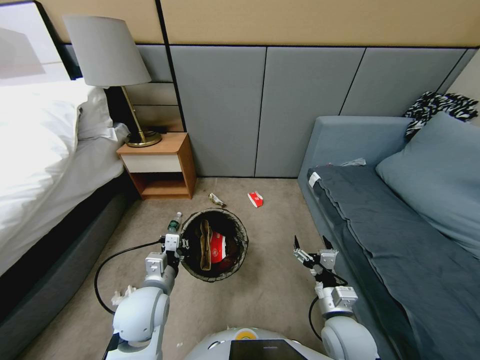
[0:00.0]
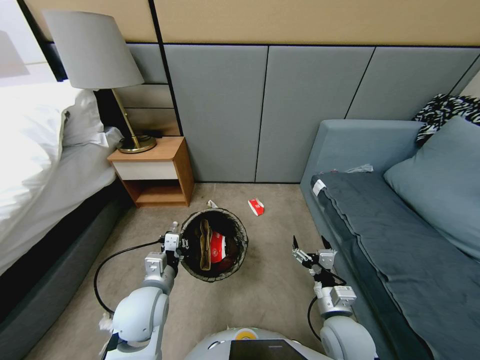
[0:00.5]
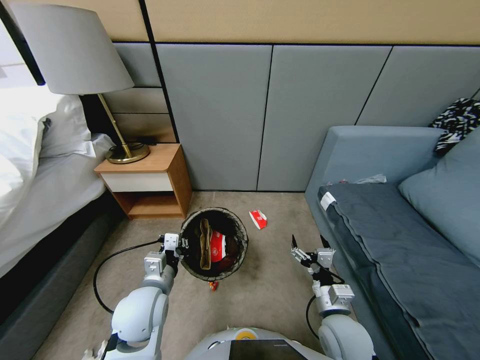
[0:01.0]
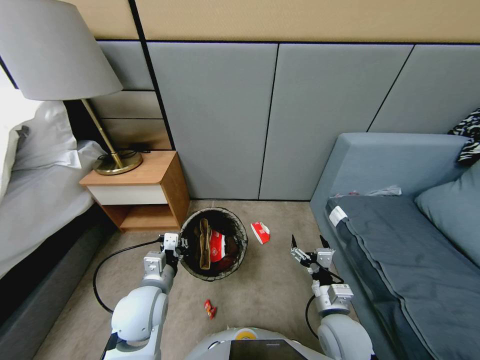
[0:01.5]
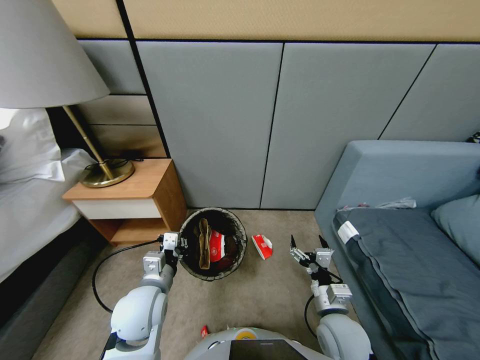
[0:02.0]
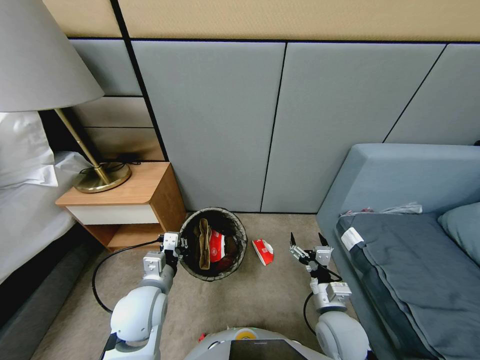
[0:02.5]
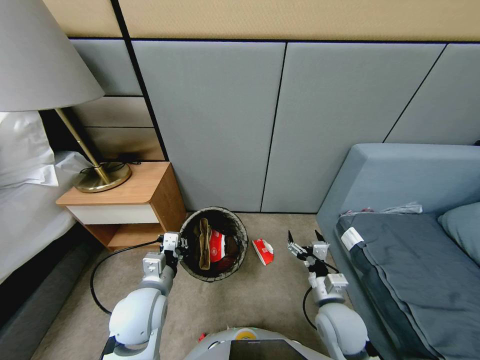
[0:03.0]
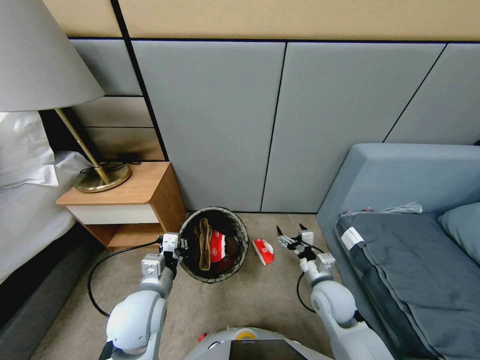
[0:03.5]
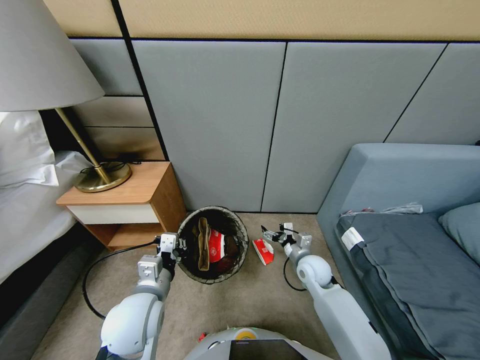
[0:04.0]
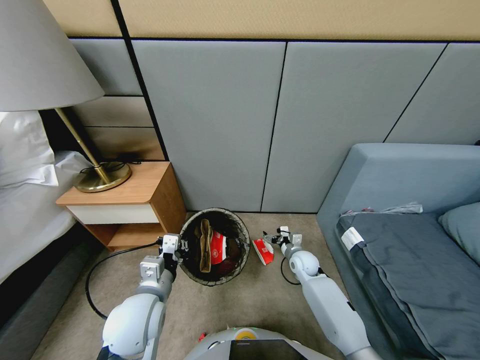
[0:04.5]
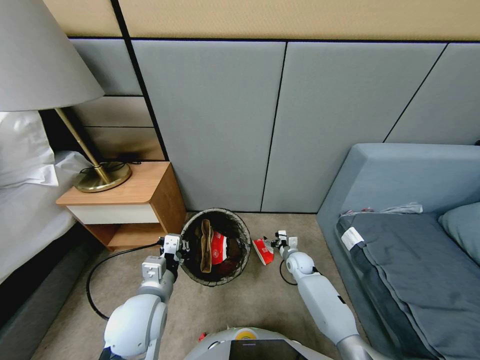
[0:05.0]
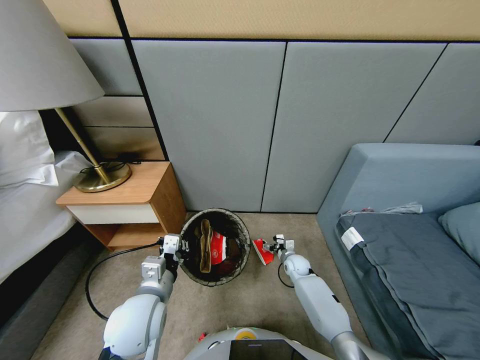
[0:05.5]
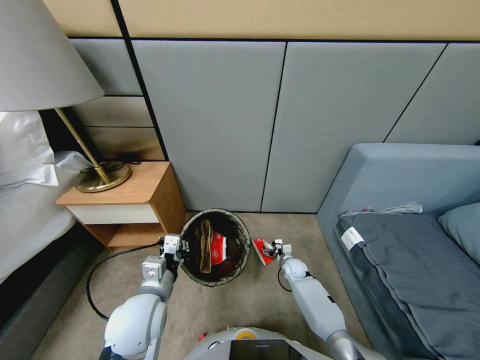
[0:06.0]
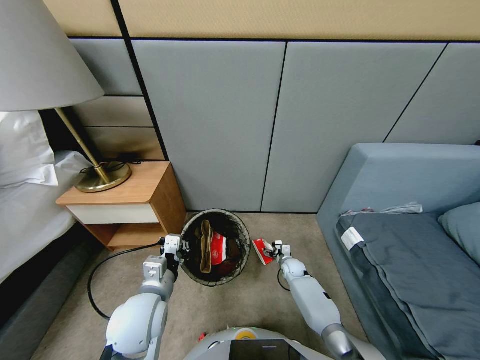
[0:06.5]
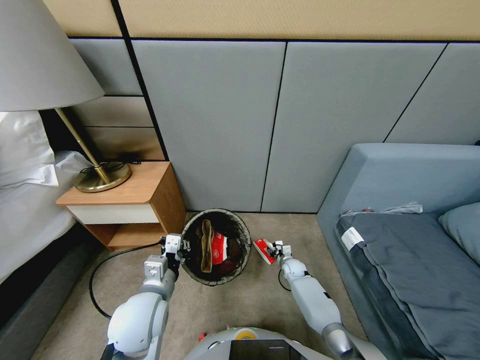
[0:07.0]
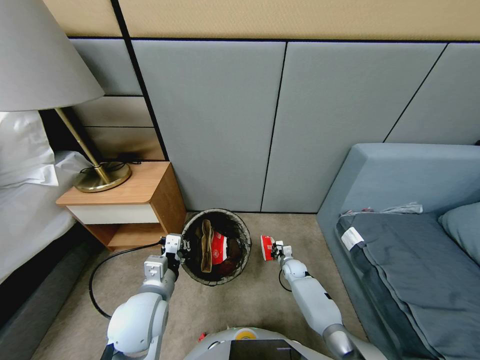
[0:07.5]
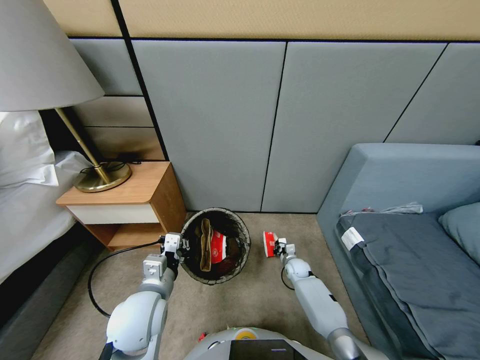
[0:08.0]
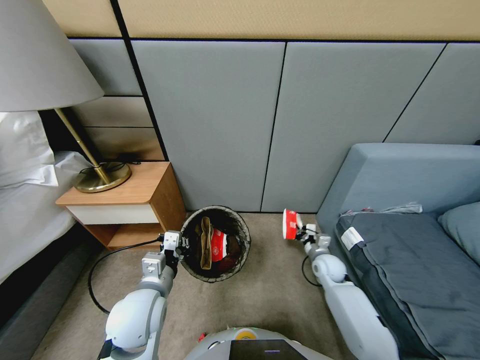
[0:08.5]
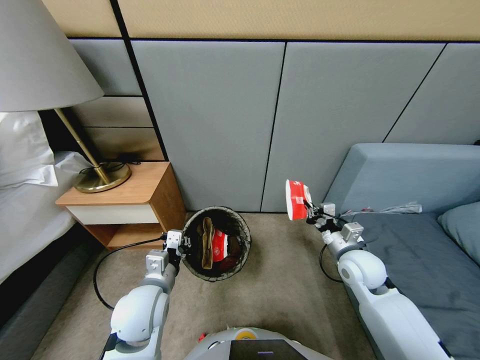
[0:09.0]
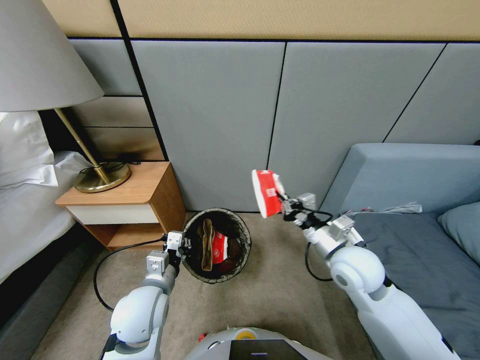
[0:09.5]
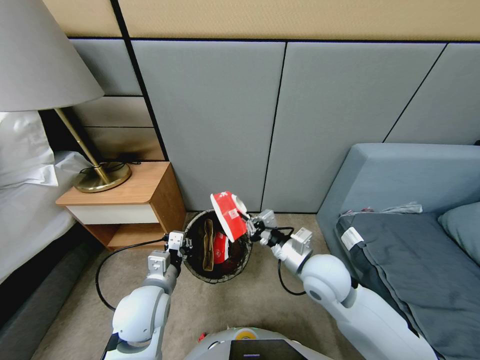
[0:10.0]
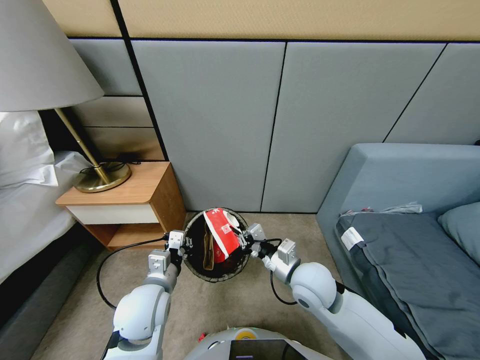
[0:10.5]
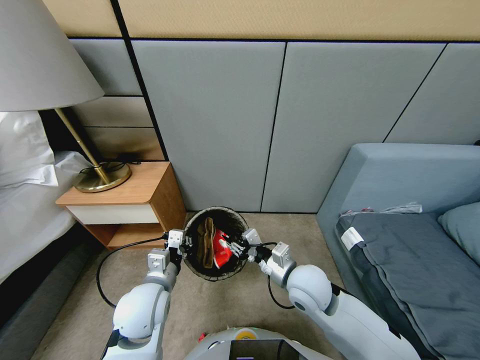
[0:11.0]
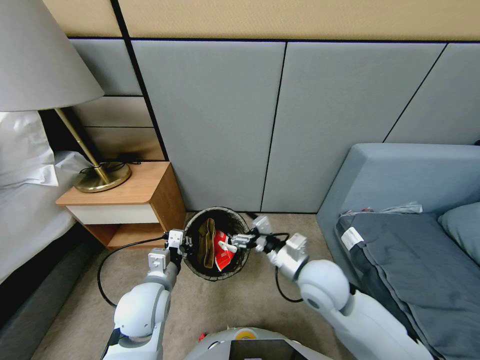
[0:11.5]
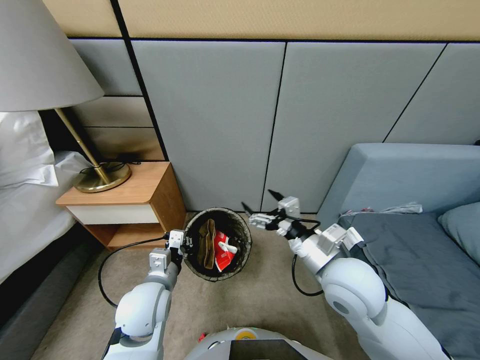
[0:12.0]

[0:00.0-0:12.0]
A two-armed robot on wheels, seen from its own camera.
Task of the whole recording: Pick up the trash bin, then pick up the garbage from the floor and place it into the trash bin.
0:02.0 to 0:04.0: The right gripper heads forward, covering about 20 cm.
0:04.0 to 0:06.0: The right gripper shifts approximately 15 cm downward.
0:06.0 to 0:08.0: The right gripper shifts by some 5 cm, and closes its fingers.
0:08.0 to 0:10.0: The right gripper is displaced upward and backward by some 30 cm.
0:10.0 to 0:12.0: The right gripper travels upward by some 5 cm, and opens up.

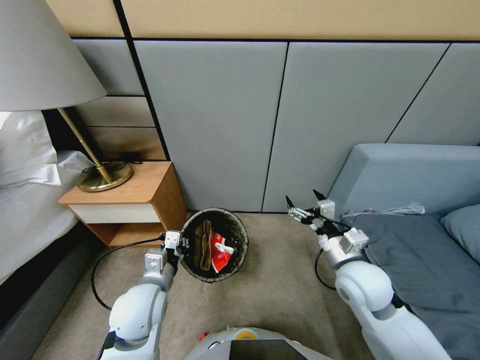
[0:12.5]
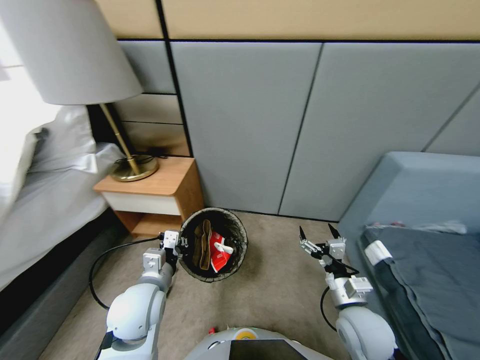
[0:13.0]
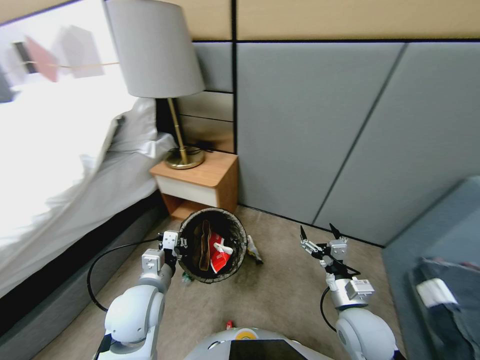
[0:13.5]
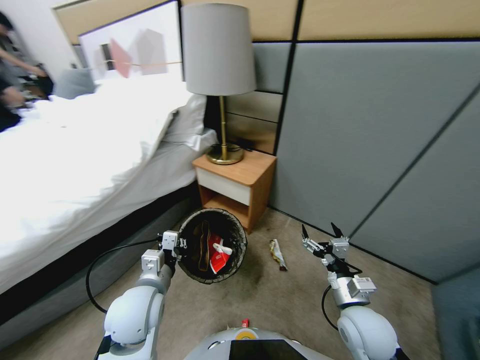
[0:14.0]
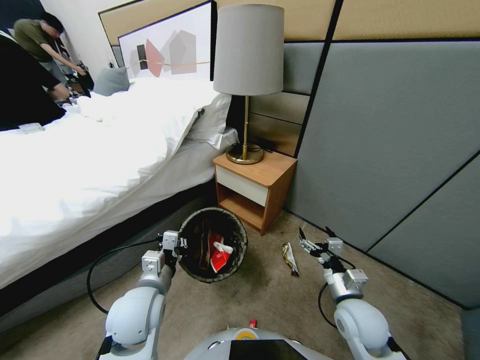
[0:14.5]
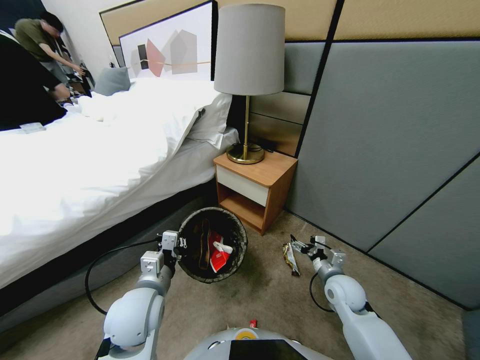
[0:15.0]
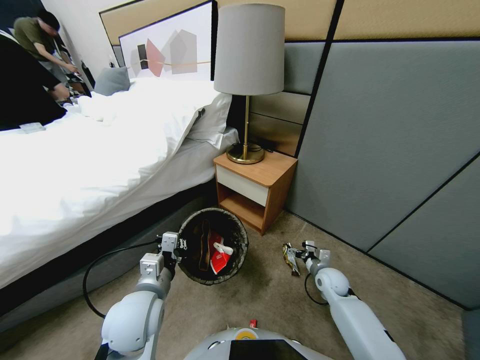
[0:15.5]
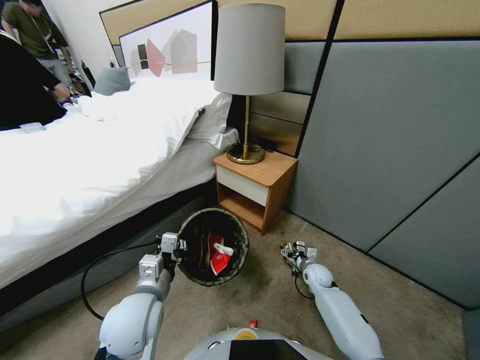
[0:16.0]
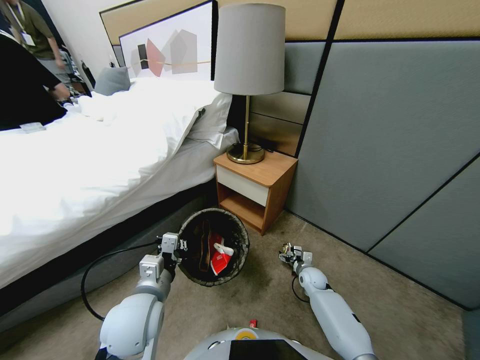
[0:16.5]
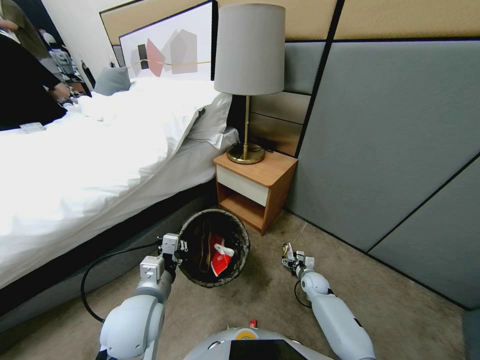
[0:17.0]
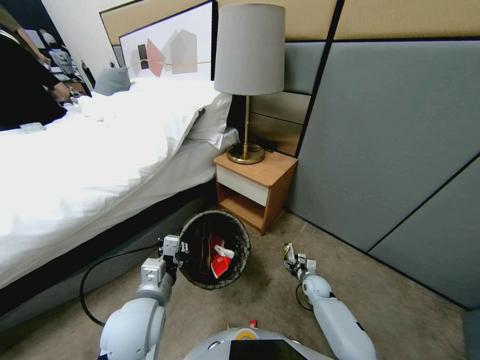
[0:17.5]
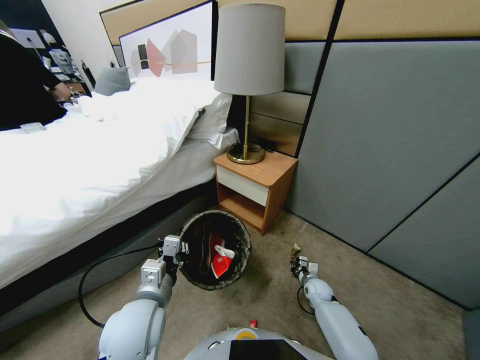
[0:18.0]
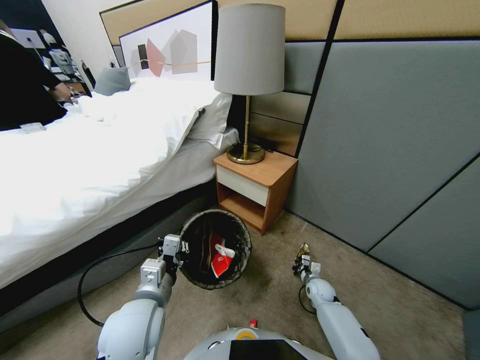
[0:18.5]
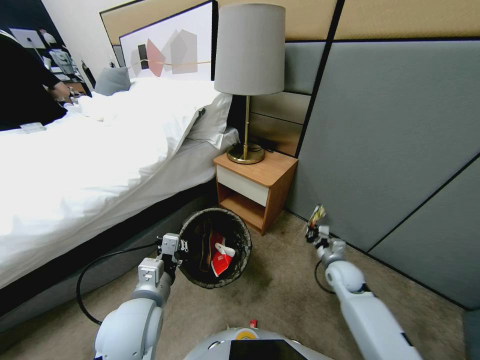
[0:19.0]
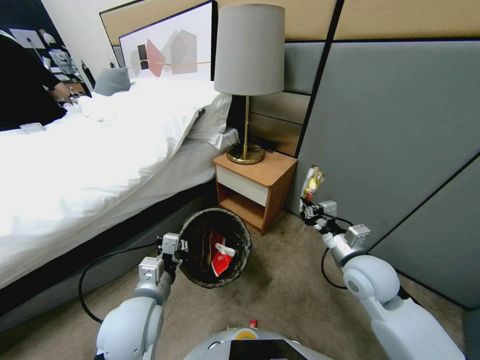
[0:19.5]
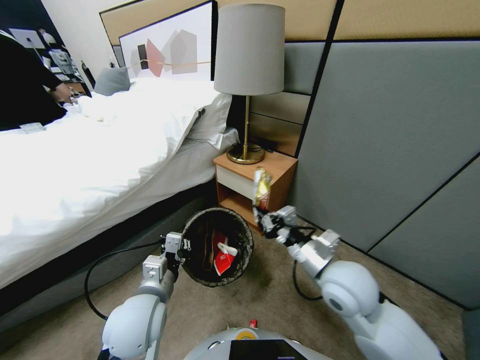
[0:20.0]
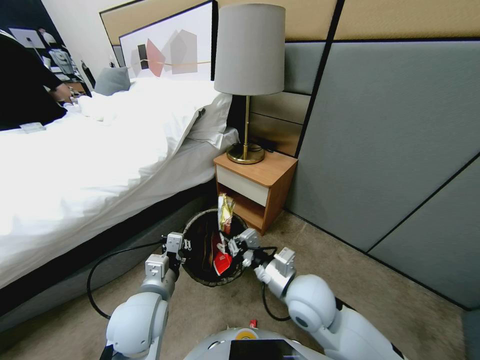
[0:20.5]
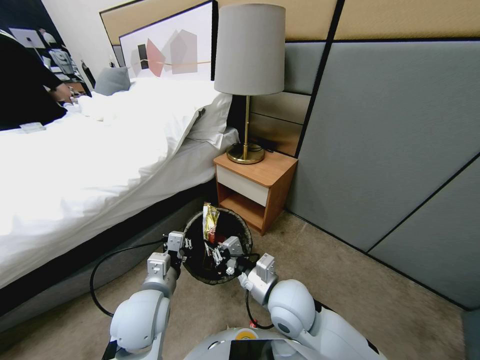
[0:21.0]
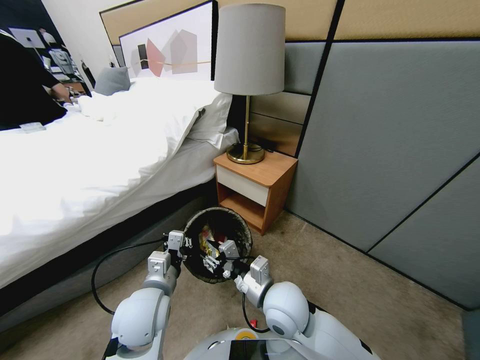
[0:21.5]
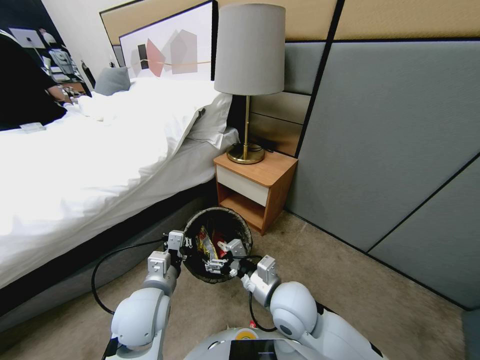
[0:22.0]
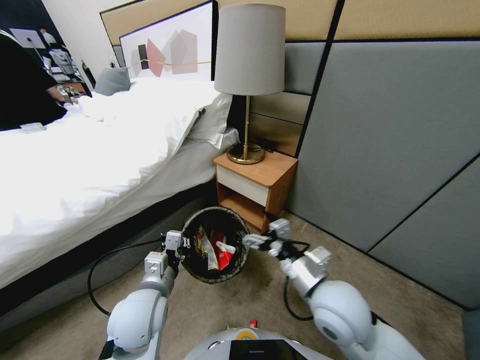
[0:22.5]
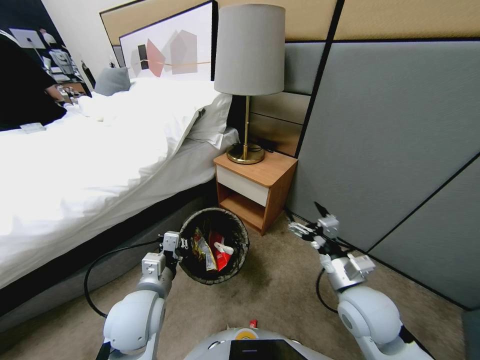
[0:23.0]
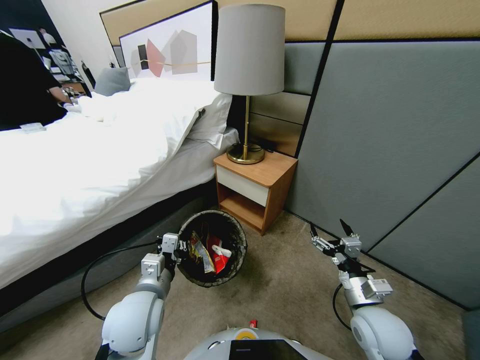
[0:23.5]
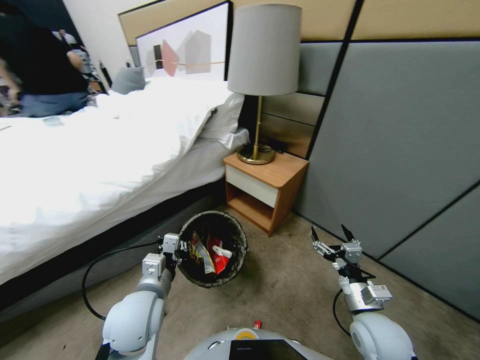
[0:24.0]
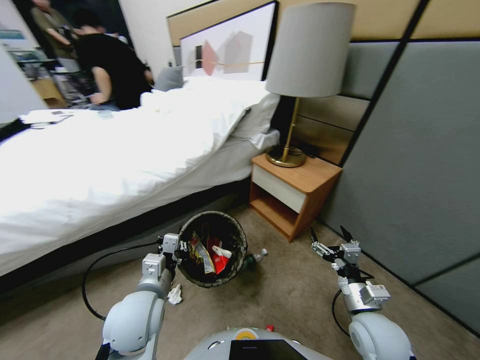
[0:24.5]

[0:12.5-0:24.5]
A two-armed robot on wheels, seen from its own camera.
Task of the whole recording: Pick up the trash bin, then pick up the garbage from the floor and place it into the trash bin.
0:12.5 to 0:14.5: The right gripper travels downward by some 10 cm.
0:14.5 to 0:16.5: The right gripper heads downward and forward, covering about 25 cm.
0:16.5 to 0:18.5: The right gripper closes its fingers.
0:18.5 to 0:20.5: The right gripper goes some 35 cm upward and to the left.
0:20.5 to 0:22.5: The right gripper heads to the right, covering roughly 5 cm, and opens.
0:22.5 to 0:24.5: The right gripper goes about 15 cm downward and to the right.

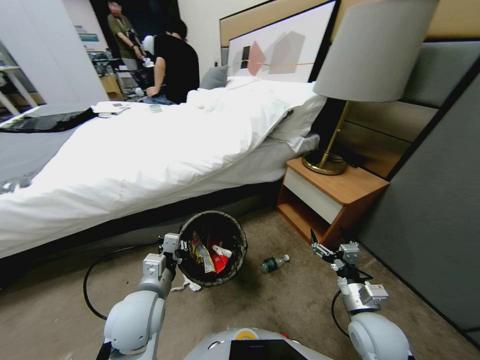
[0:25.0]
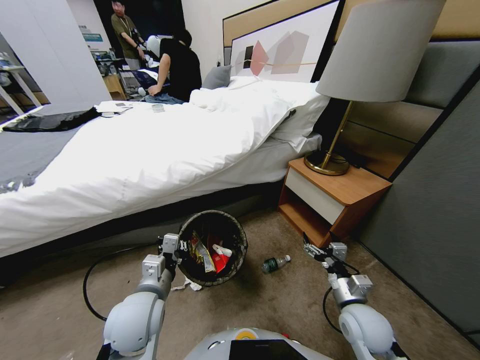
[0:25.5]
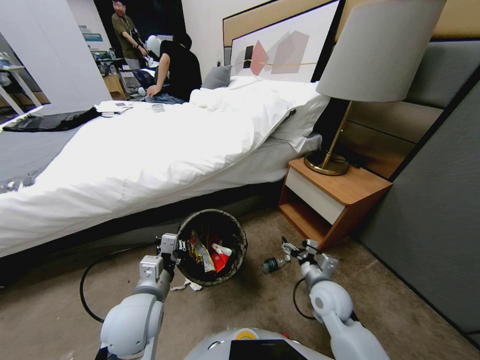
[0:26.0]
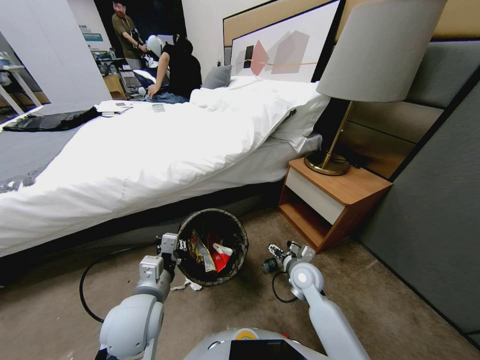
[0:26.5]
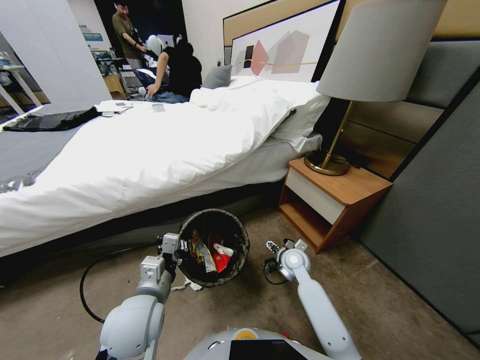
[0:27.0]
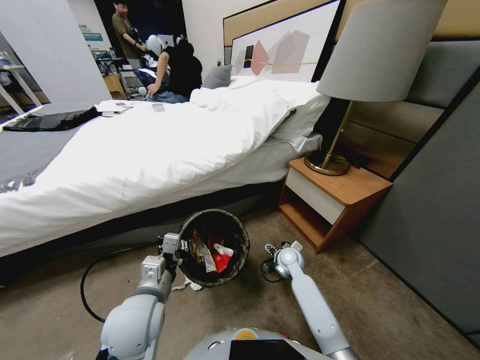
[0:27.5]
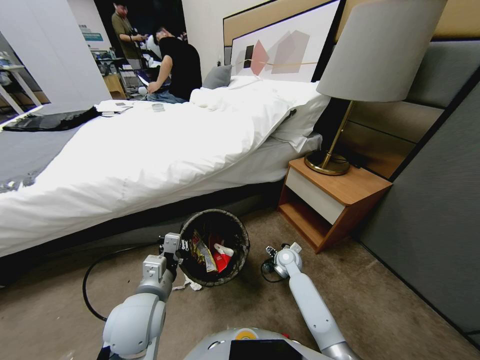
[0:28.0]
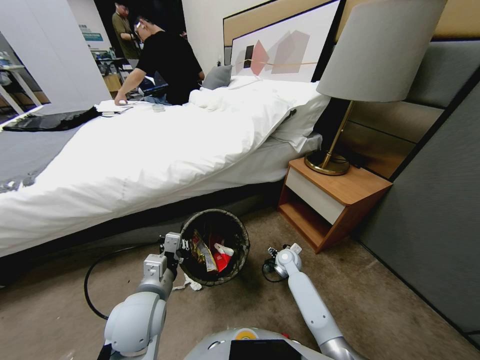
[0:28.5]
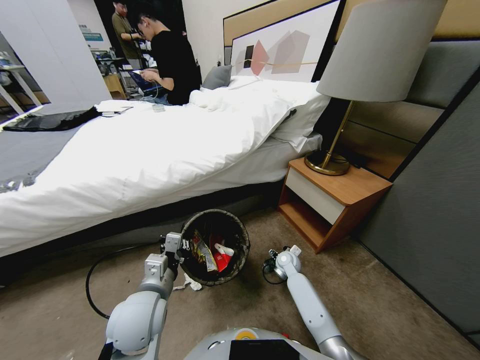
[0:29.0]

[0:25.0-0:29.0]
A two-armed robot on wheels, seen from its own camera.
Task of the whole recording: Pick up the trash bin, then pick up the garbage from the floor and place it into the trash bin.
0:25.0 to 0:27.0: The right gripper is displaced forward and to the left by approximately 20 cm.
0:27.0 to 0:29.0: The right gripper heads downward, covering roughly 10 cm.
